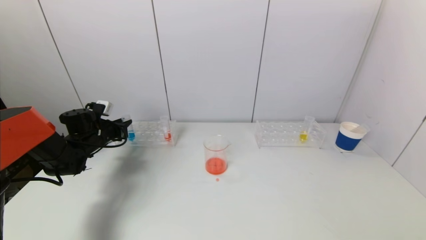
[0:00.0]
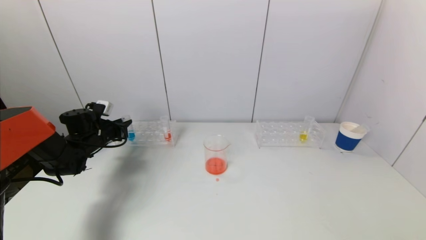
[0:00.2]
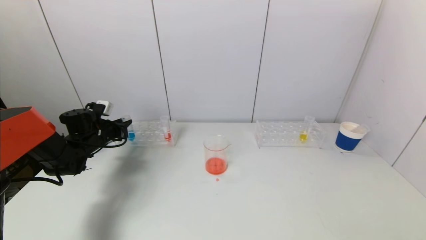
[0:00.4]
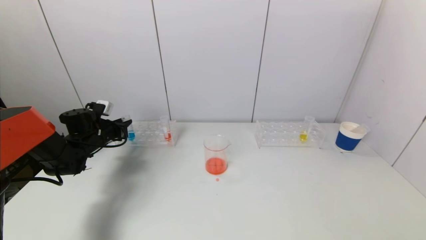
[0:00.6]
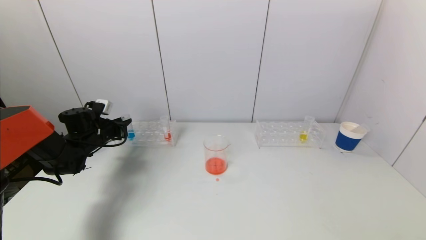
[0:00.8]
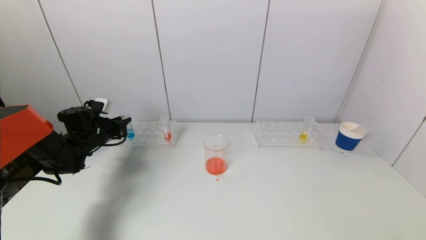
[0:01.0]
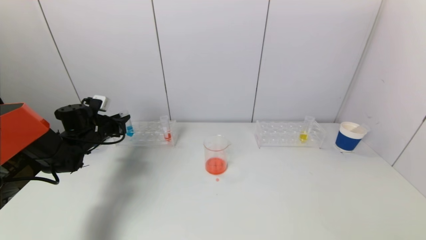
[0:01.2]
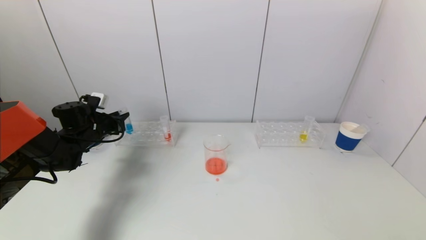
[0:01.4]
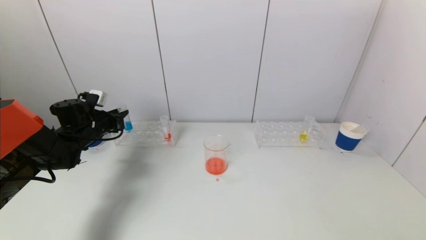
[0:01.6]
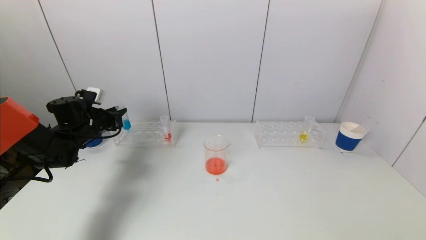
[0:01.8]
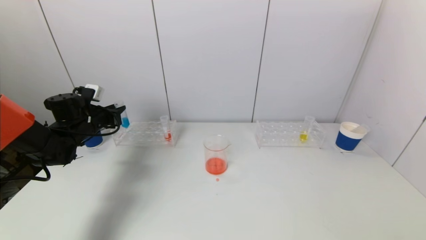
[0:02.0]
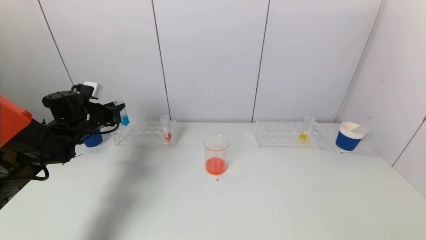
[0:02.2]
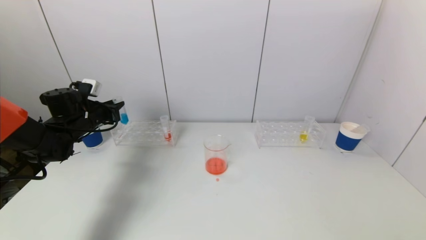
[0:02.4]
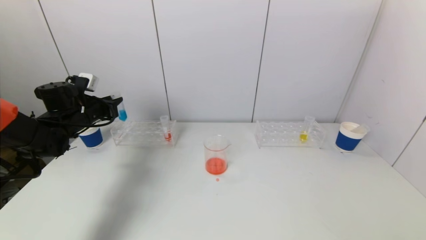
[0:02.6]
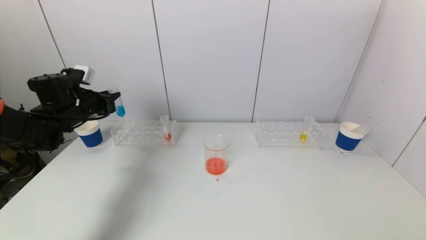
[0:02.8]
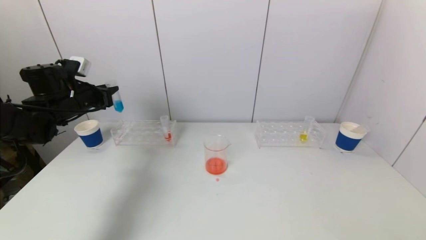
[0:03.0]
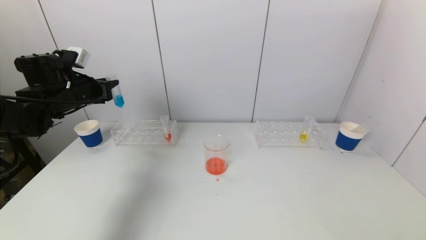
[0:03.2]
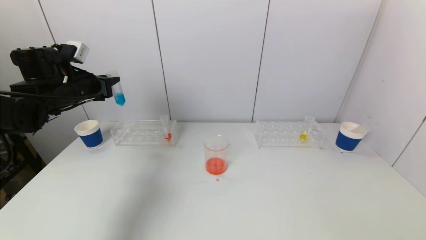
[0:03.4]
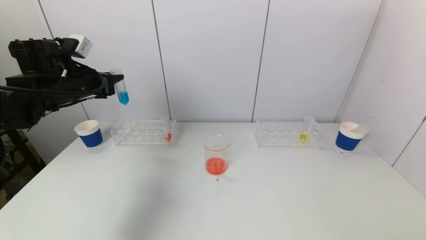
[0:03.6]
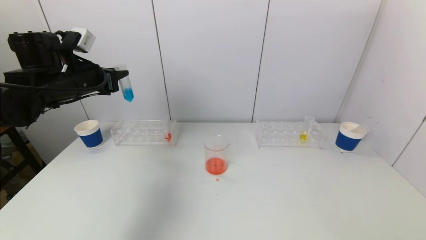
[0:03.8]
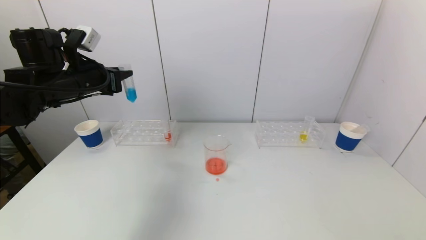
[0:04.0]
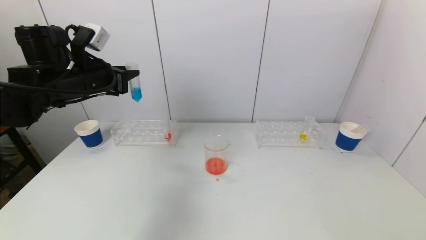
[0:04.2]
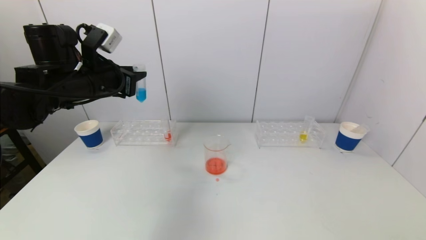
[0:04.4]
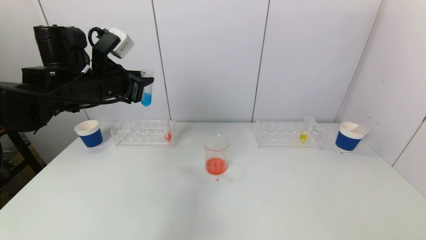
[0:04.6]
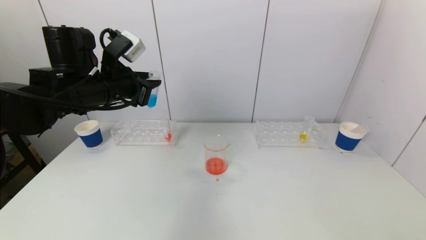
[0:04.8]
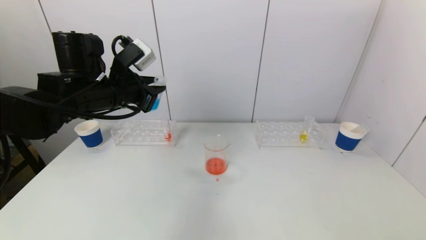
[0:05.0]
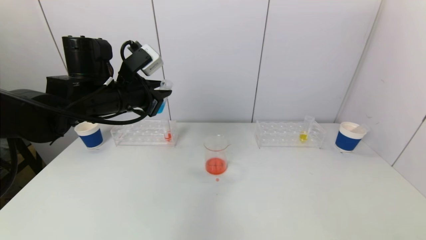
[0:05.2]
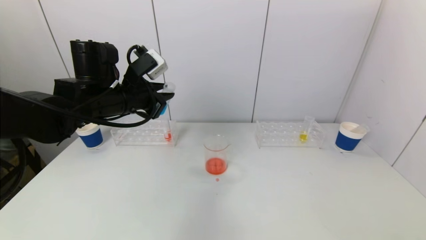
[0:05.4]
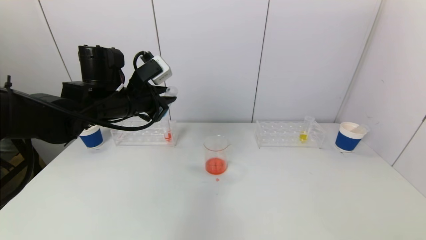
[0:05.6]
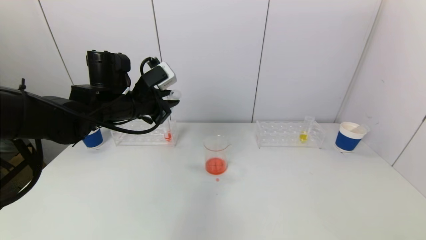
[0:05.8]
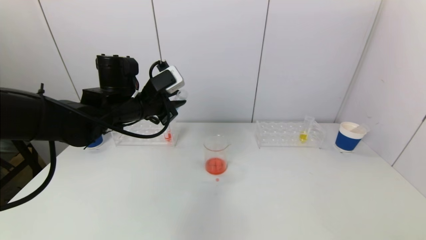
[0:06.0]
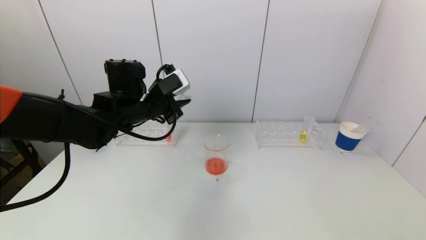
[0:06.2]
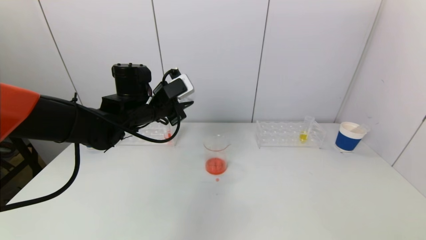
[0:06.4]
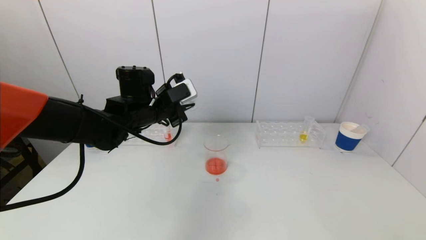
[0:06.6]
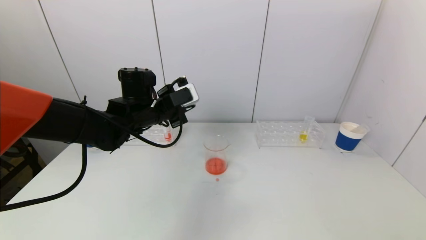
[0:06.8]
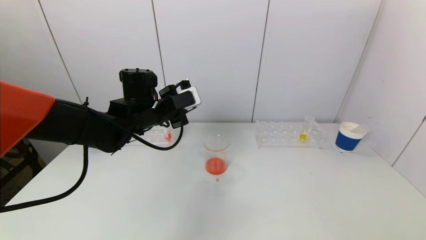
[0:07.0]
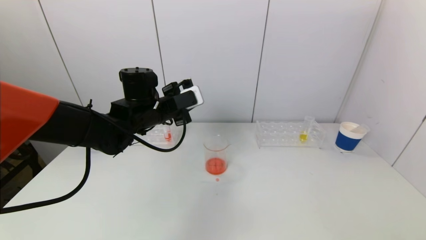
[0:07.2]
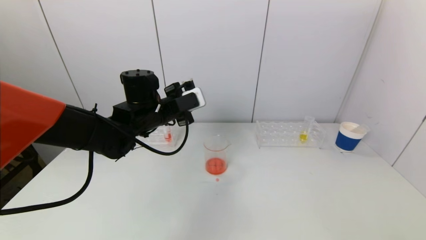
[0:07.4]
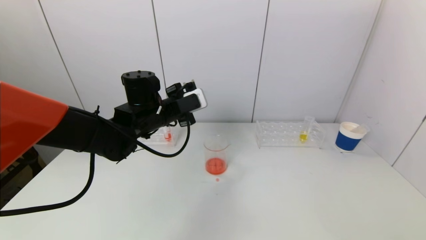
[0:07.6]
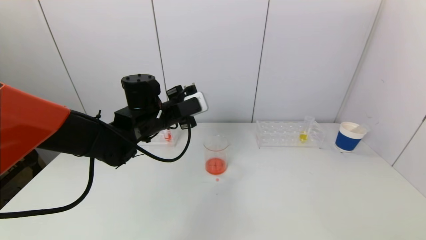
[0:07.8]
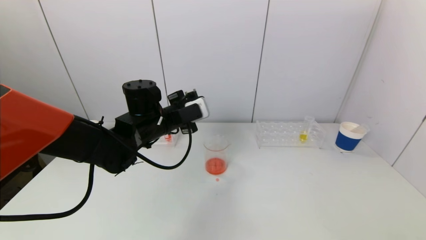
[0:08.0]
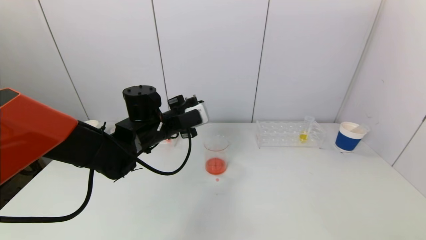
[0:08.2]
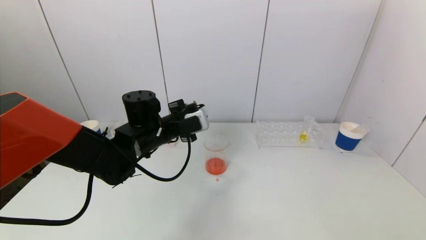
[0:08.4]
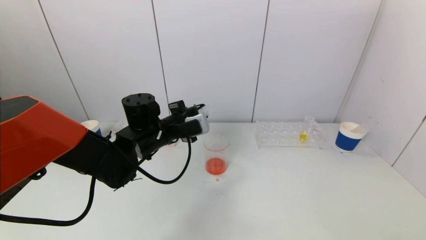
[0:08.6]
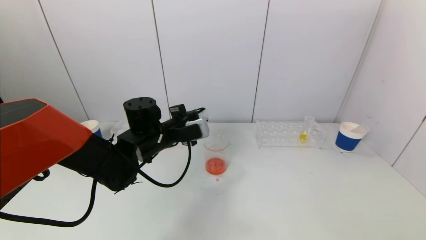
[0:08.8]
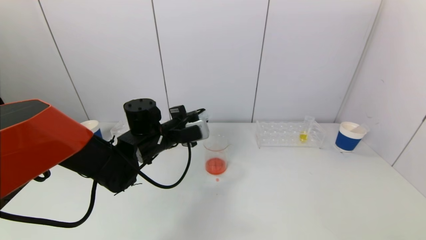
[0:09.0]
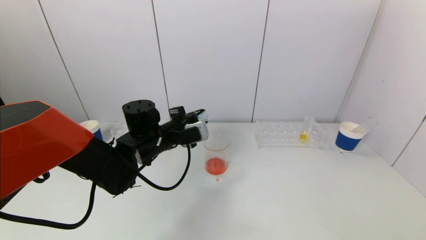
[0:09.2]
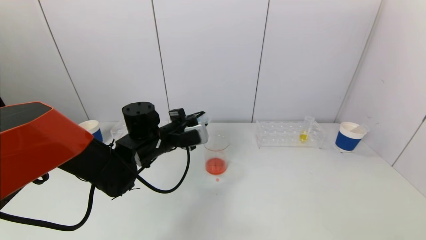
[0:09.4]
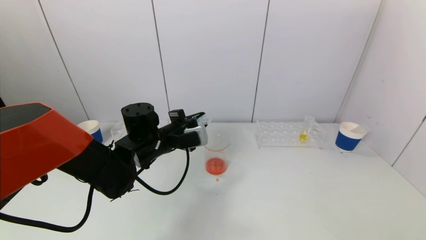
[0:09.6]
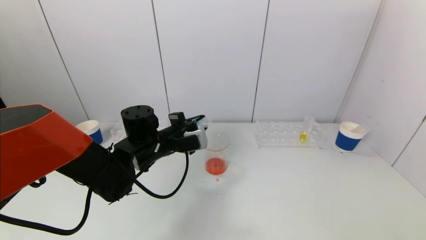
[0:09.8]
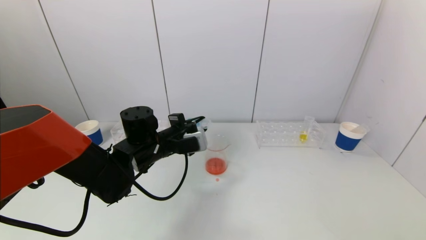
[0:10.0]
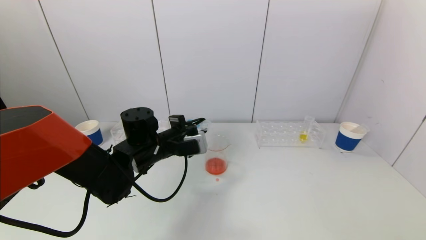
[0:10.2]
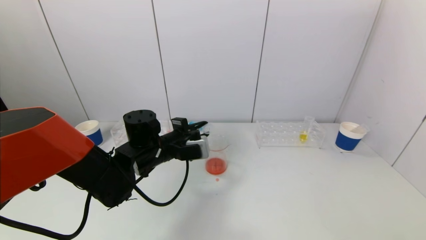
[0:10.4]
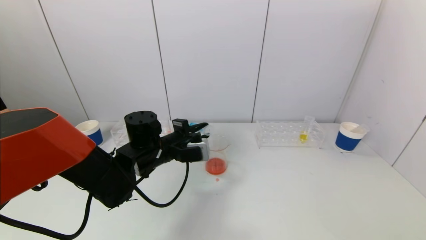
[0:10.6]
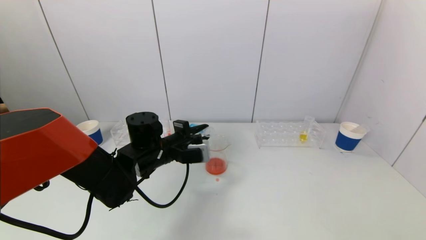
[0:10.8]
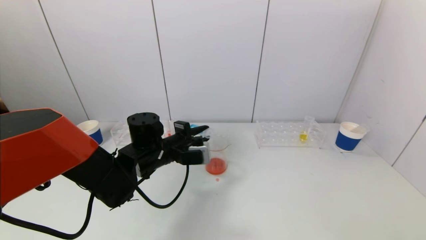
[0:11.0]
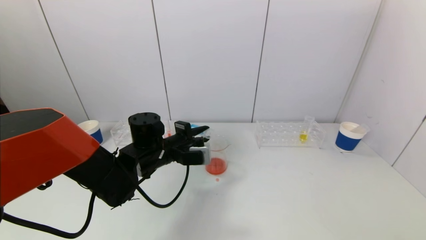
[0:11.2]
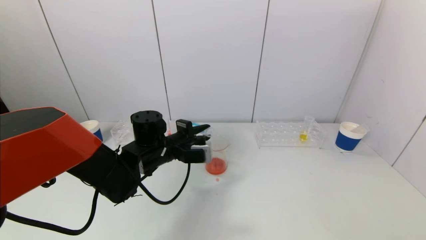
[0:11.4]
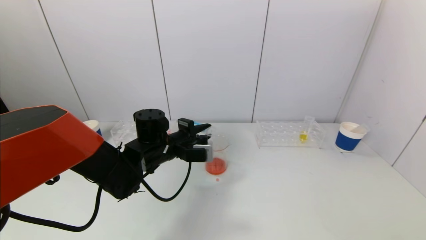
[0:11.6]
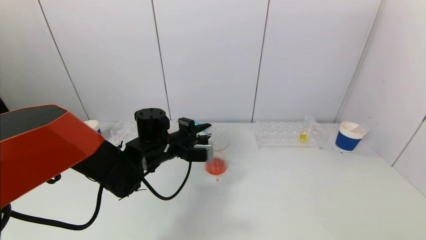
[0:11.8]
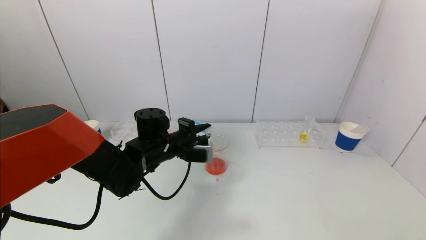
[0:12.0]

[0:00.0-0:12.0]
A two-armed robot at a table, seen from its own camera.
Task of the whole recording: pick up a test tube with pigment on left test tube rack and a test tube with pigment on right test tube rack by grippers and pour them into the beaker.
0:00.0 to 0:01.6: The grippers make only small movements.
0:01.6 to 0:03.0: The left gripper travels upward by some 10 cm.
0:03.0 to 0:04.4: The left gripper is displaced to the right, upward and backward by roughly 15 cm.
0:04.4 to 0:06.0: The left gripper is displaced to the right and downward by some 10 cm.
0:06.0 to 0:07.6: The left gripper ends up roughly 5 cm from where it was.
0:07.6 to 0:09.0: The left gripper goes about 5 cm downward.
0:09.0 to 0:12.0: The grippers stay close to where they were, moving slightly.

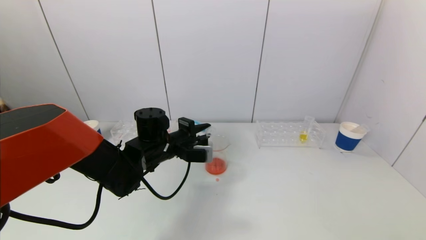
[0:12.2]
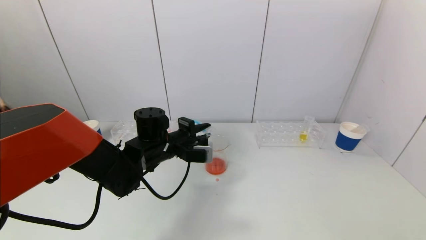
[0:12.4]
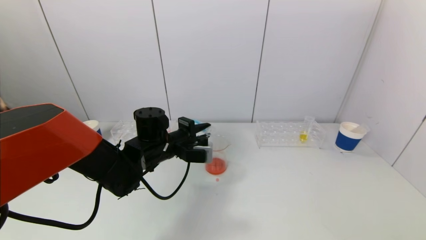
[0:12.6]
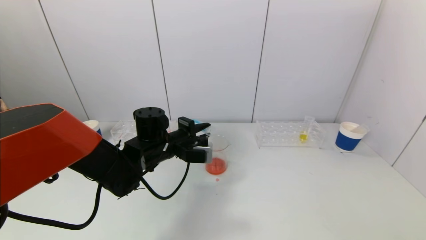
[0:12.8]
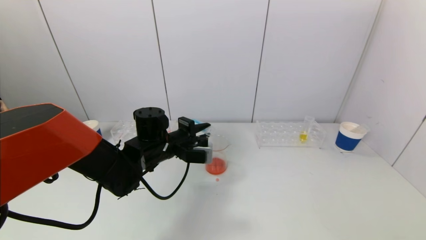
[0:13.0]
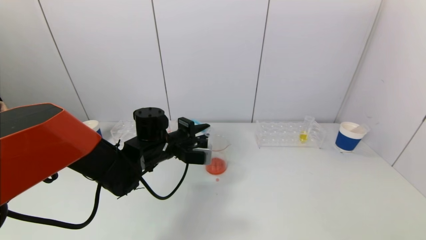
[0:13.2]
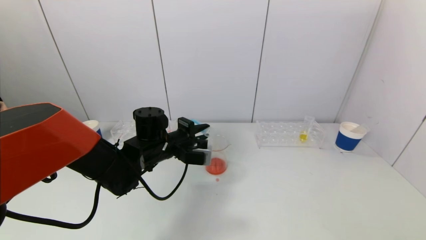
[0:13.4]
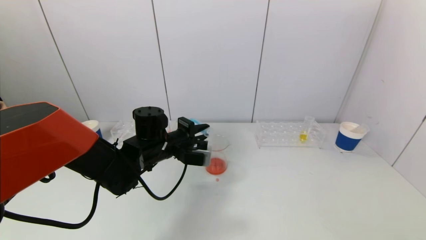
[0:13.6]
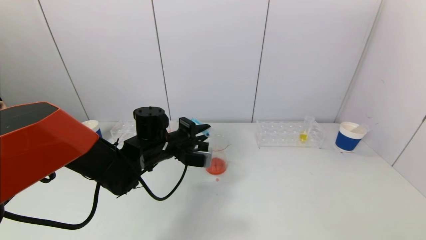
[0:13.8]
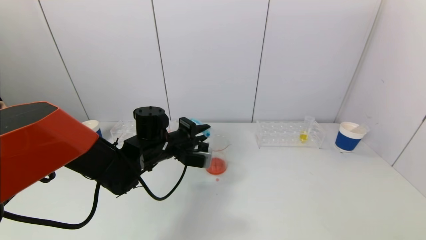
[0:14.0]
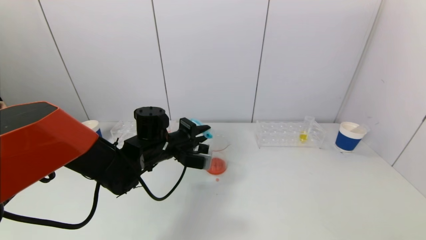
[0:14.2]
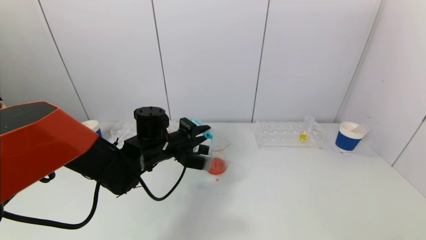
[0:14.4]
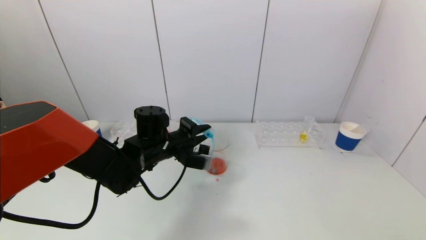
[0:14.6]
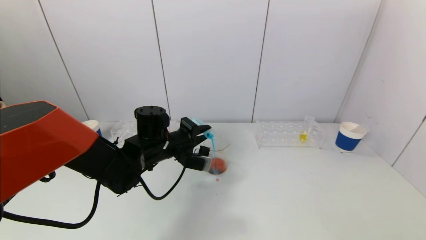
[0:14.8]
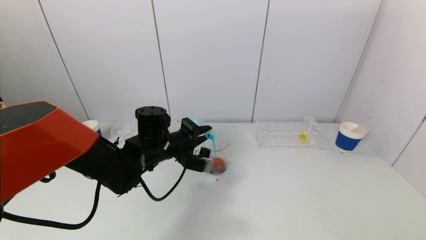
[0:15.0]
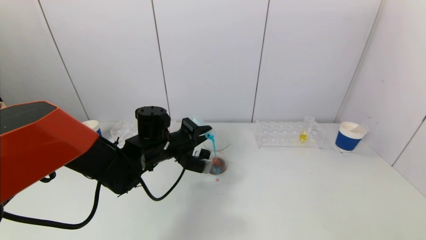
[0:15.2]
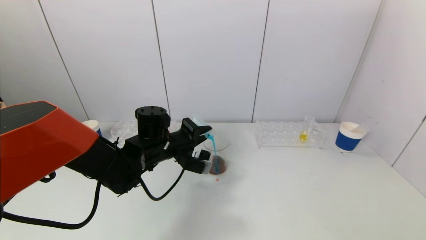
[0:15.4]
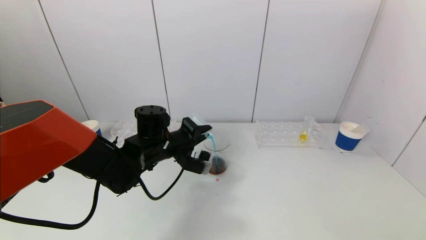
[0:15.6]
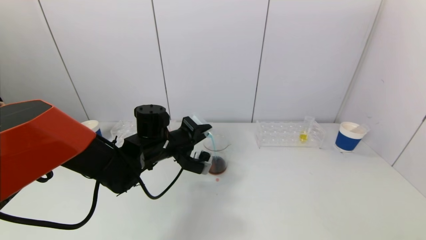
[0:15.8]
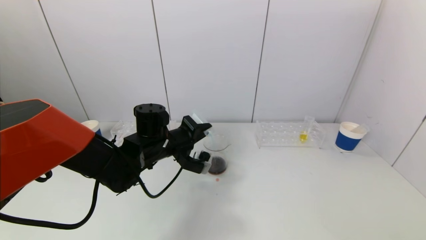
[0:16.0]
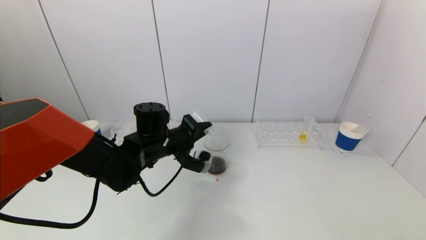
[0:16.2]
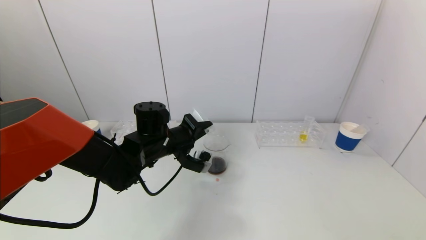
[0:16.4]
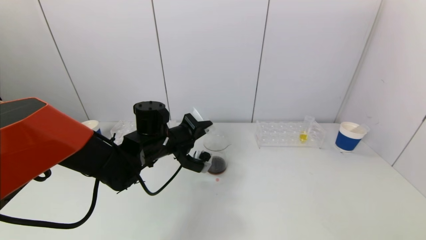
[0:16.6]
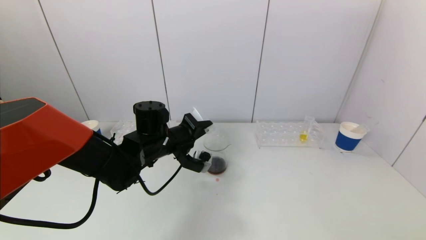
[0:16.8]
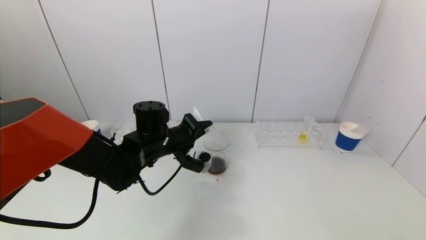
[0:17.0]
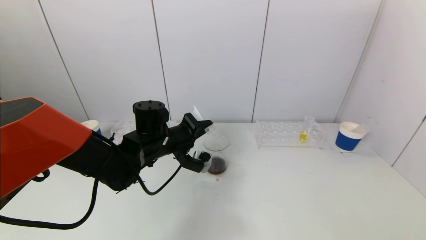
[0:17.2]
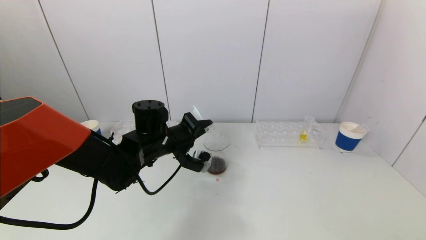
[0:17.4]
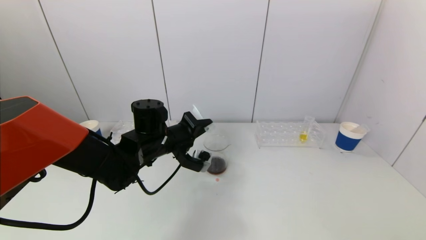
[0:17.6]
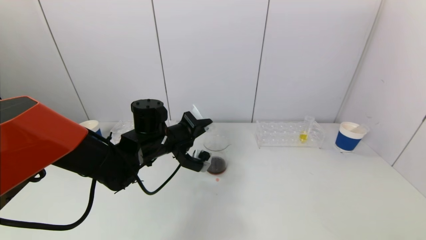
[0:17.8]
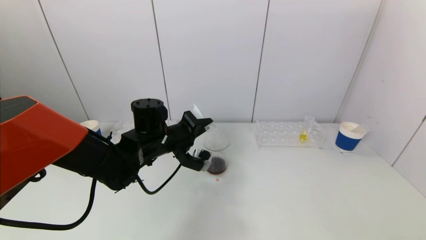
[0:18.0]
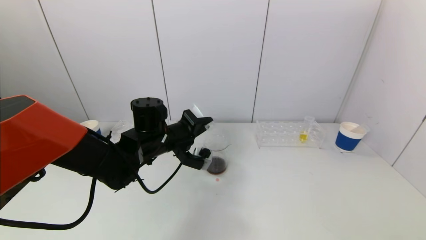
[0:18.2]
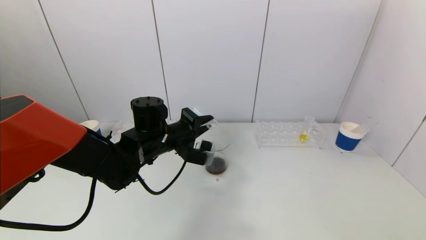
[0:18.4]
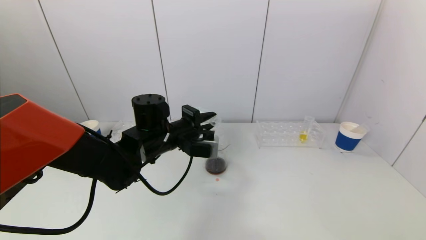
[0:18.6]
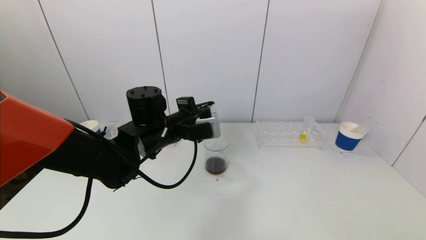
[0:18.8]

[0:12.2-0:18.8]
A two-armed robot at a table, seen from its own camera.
Task of the whole recording: pick up a test tube with pigment on left test tube rack and a test tube with pigment on right test tube rack by grippers and pour them into the beaker.
Step, 0:12.2 to 0:18.4: Pour the blue reagent into the graduated cylinder with the left gripper.
0:12.2 to 0:15.4: The grippers move only a little.
0:15.4 to 0:17.2: The grippers stay close to where they were, moving slightly.
